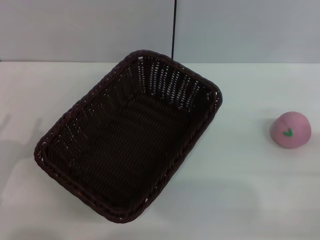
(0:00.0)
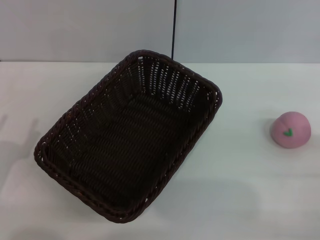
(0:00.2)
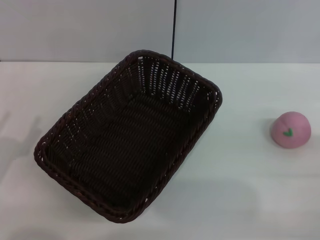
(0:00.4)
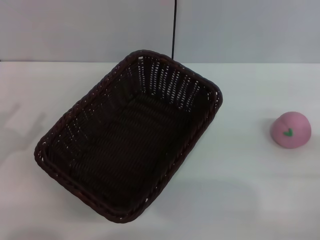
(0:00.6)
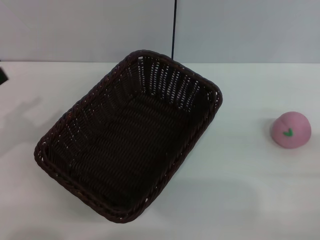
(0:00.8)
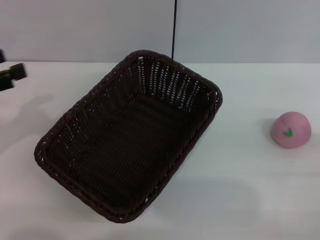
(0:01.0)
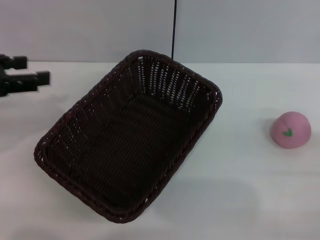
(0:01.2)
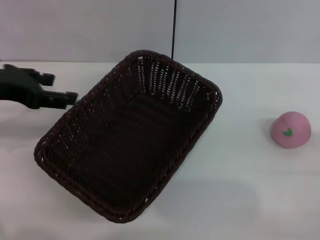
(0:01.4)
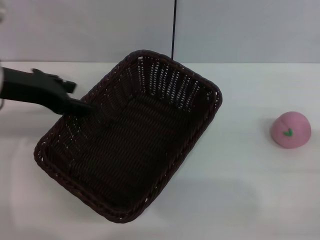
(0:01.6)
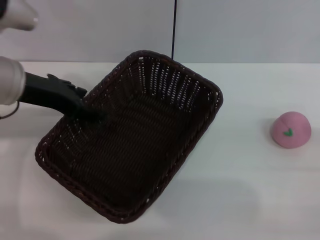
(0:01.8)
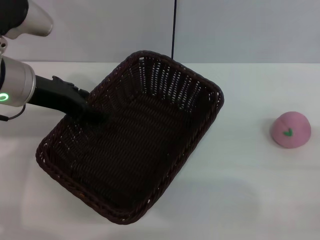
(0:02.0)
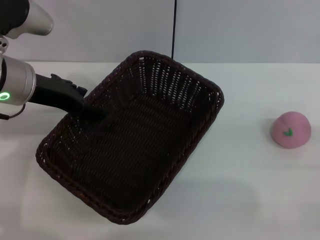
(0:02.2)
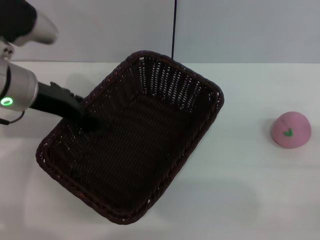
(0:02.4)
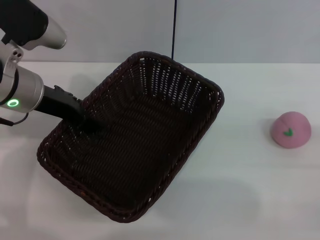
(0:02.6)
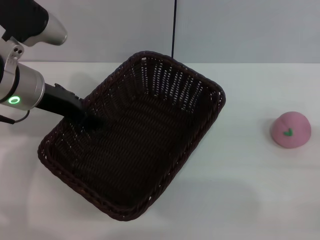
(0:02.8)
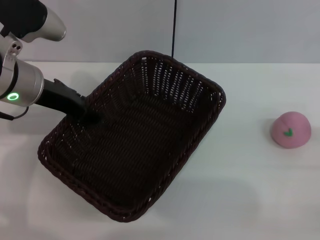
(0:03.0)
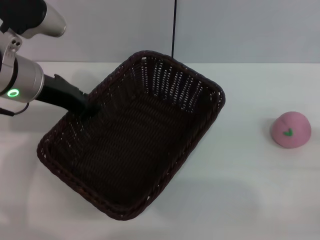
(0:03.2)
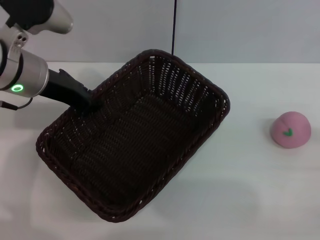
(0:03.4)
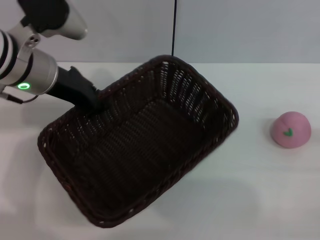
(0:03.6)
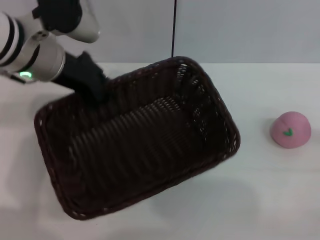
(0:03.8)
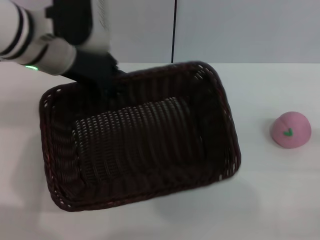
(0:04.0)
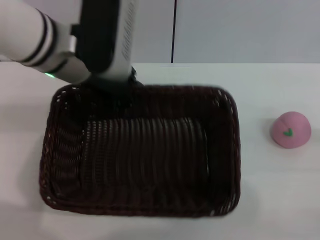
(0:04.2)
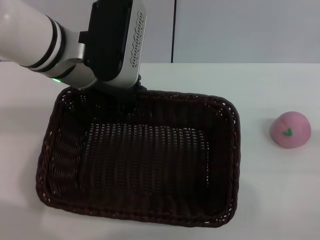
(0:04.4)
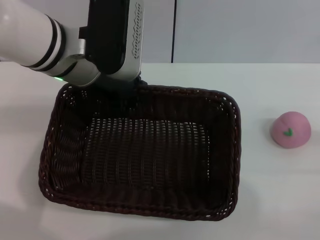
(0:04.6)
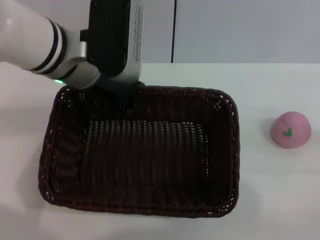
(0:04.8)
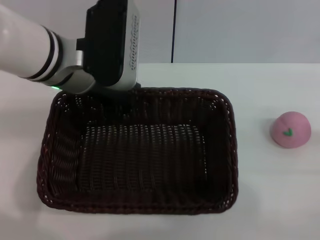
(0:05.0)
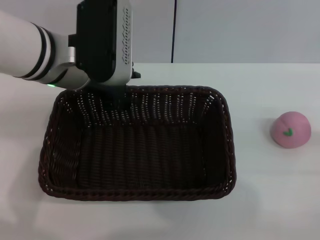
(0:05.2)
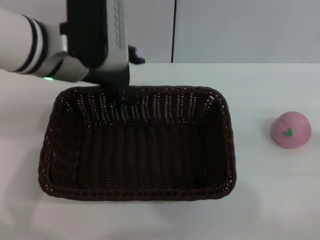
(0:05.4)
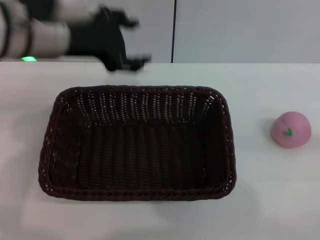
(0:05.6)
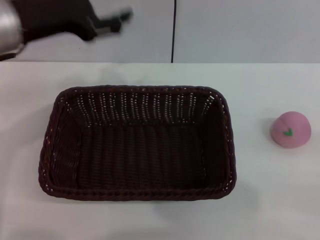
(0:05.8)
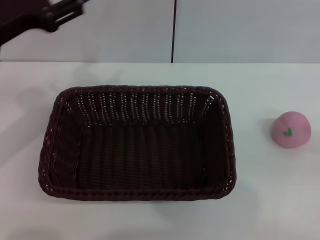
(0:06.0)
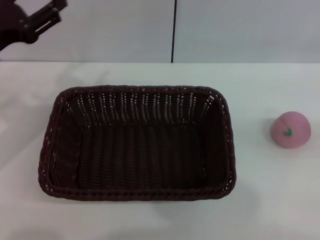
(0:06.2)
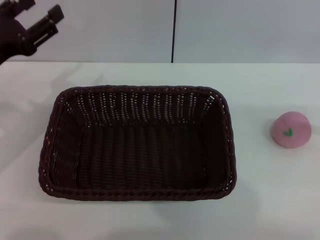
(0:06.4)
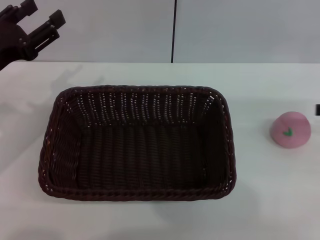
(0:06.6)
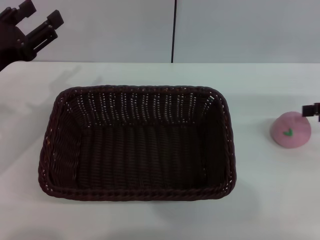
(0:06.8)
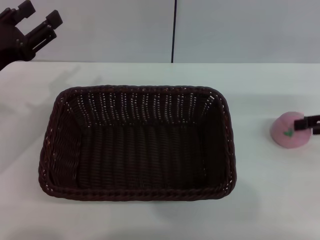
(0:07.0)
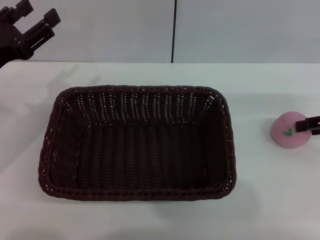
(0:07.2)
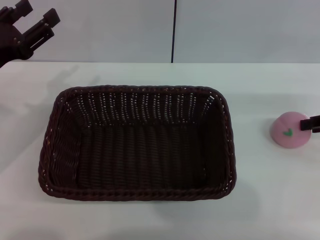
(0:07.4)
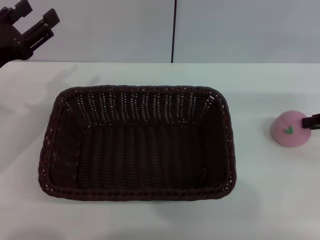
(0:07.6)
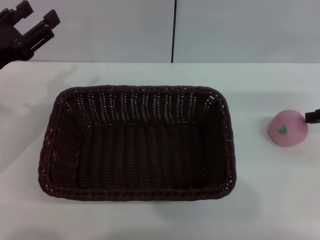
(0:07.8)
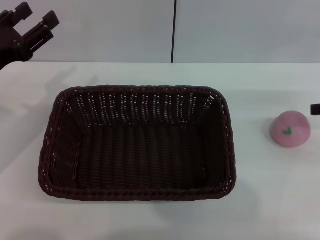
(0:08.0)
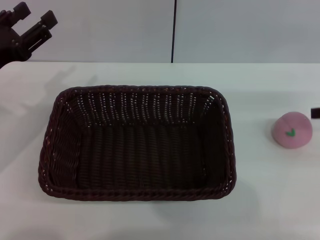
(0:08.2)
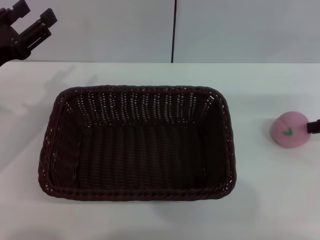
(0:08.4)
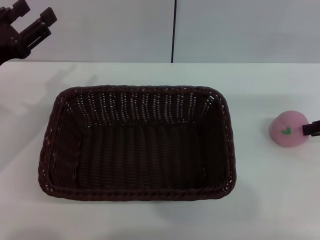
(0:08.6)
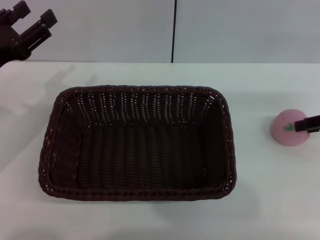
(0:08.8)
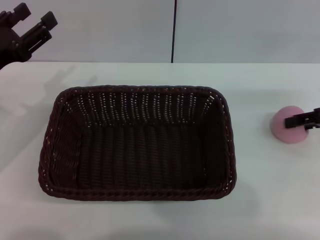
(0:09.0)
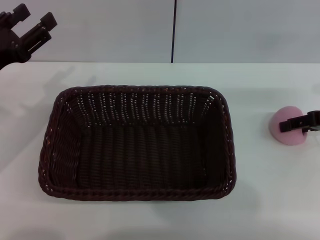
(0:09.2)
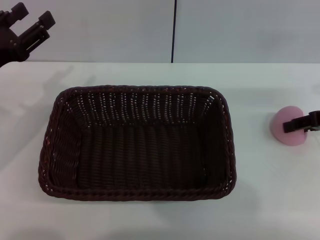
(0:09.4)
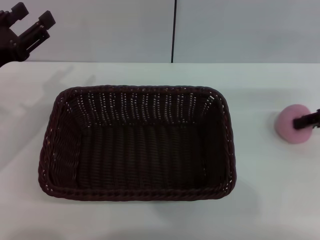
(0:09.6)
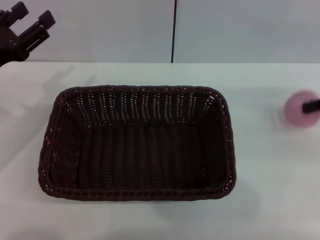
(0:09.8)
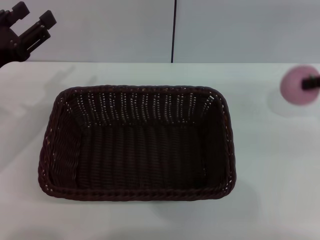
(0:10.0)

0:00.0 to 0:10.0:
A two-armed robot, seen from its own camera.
Step, 0:00.0 to 0:03.6: Pick up the dark basket with the left gripper.
Step, 0:04.0 to 0:05.4: Place the dark basket in the center of view with the right gripper.
Step, 0:05.8 to 0:09.8: Pick up the peach with the left gripper.
0:00.0 to 0:01.4: The left gripper is displaced upward and forward by roughly 20 cm.
0:01.4 to 0:02.8: The left gripper shifts approximately 5 cm to the right.
0:02.8 to 0:04.2: The left gripper shifts about 5 cm to the right, and closes up.
0:04.2 to 0:05.8: The left gripper moves to the left, approximately 10 cm, and opens. Meanwhile the right gripper ends up about 5 cm from where it was.
0:05.8 to 0:07.2: The right gripper goes approximately 15 cm forward and to the left. The left gripper is displaced downward and to the left by approximately 10 cm.
0:08.6 to 0:10.0: The right gripper opens, then closes again.

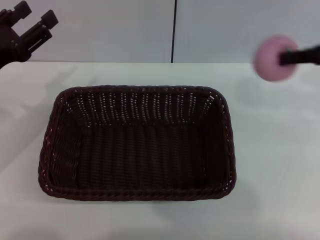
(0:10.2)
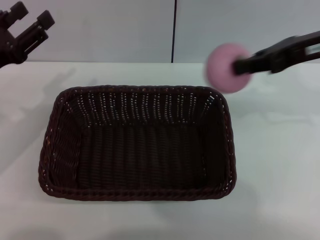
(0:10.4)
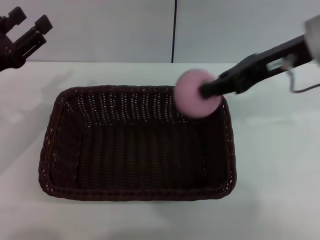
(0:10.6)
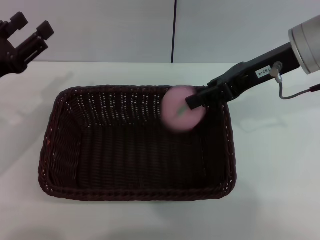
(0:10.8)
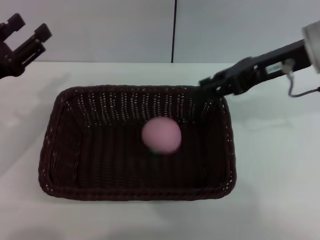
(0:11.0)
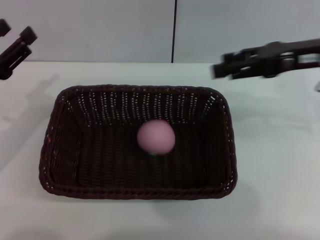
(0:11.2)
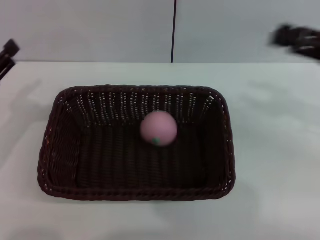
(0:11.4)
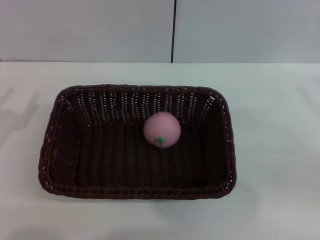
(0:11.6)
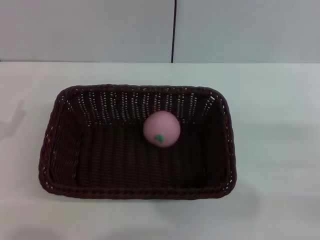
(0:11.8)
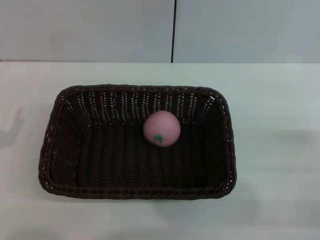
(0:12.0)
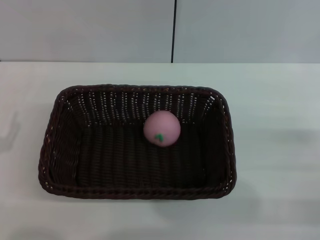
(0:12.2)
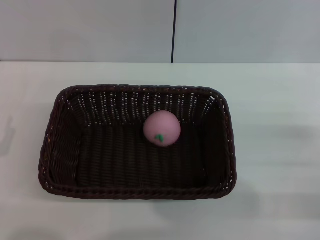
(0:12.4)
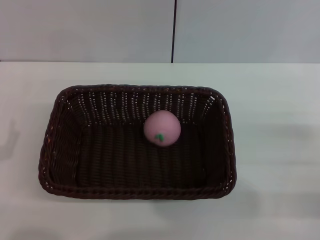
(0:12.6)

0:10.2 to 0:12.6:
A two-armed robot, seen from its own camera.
0:10.2 to 0:11.4: The left gripper moves some 5 cm. The right gripper moves downward, some 5 cm, moves approximately 10 cm to the left and comes back, and opens up.
0:11.4 to 0:12.6: The left gripper is displaced backward and downward by some 10 cm, while the right gripper heads downward and backward, covering about 15 cm.
